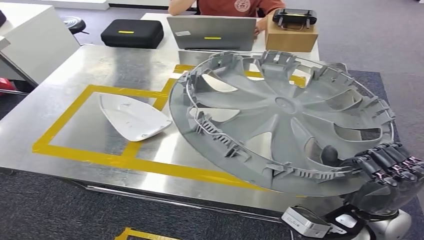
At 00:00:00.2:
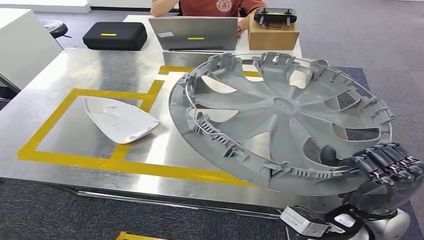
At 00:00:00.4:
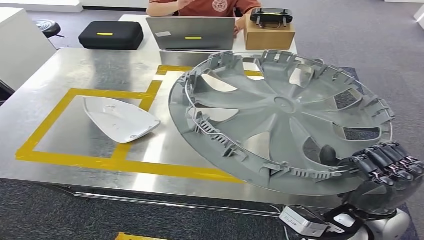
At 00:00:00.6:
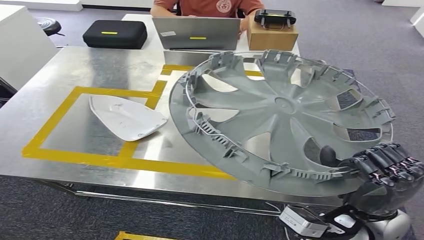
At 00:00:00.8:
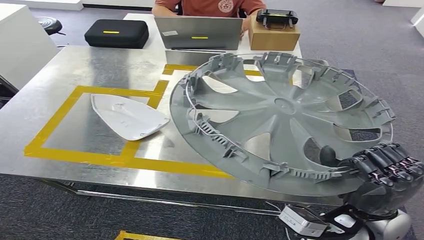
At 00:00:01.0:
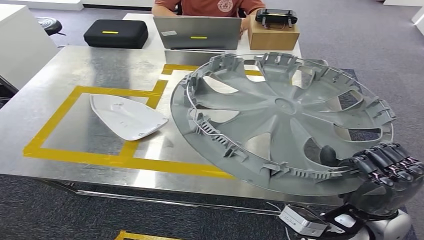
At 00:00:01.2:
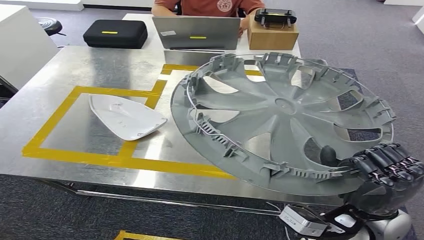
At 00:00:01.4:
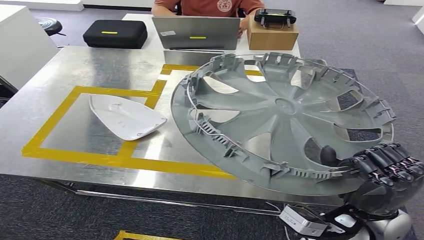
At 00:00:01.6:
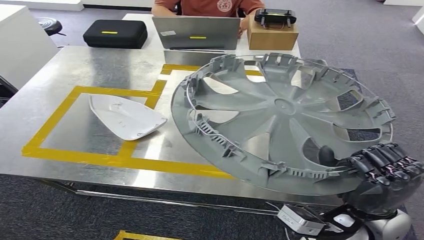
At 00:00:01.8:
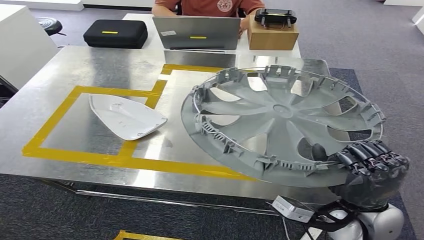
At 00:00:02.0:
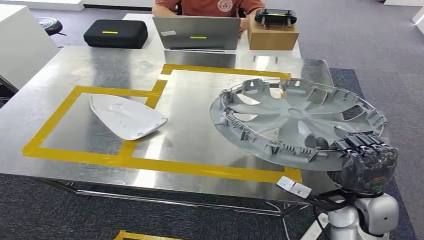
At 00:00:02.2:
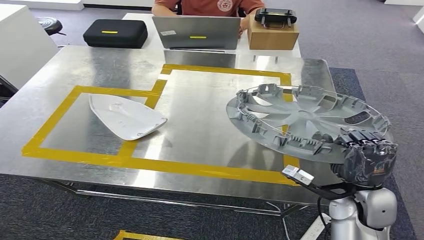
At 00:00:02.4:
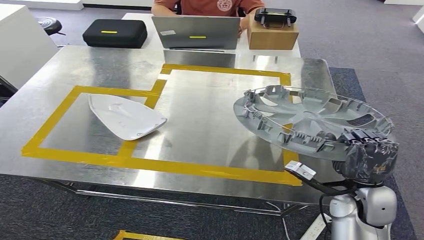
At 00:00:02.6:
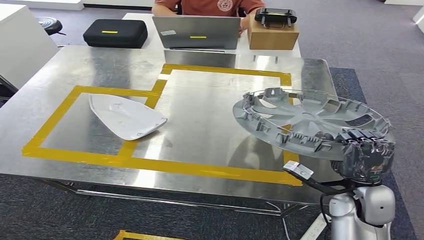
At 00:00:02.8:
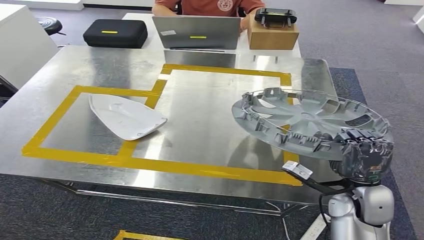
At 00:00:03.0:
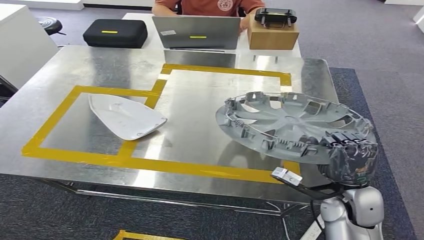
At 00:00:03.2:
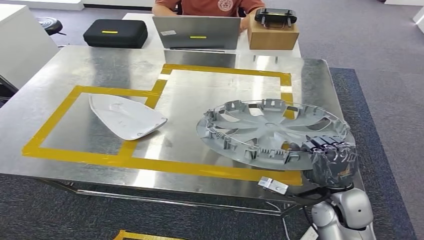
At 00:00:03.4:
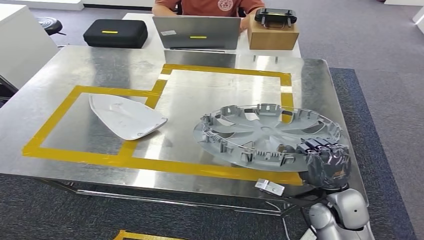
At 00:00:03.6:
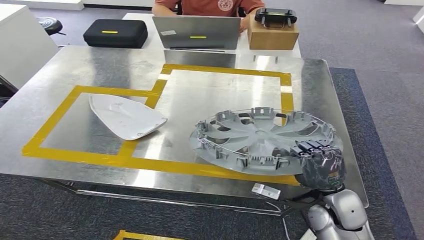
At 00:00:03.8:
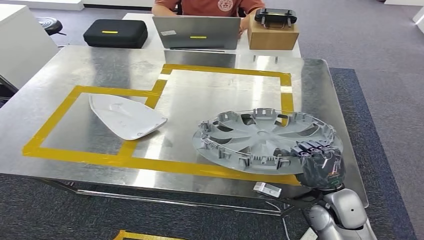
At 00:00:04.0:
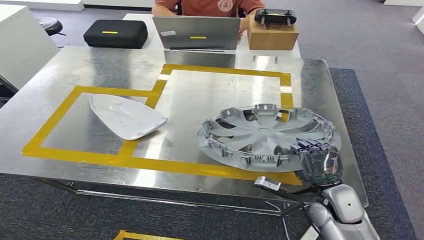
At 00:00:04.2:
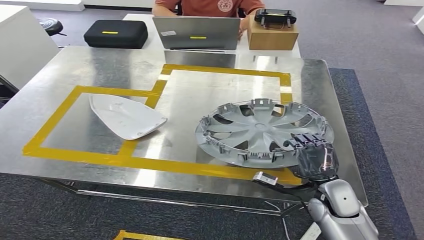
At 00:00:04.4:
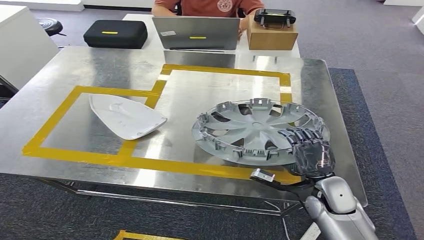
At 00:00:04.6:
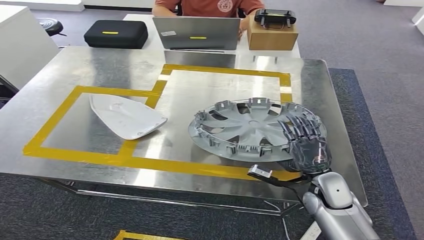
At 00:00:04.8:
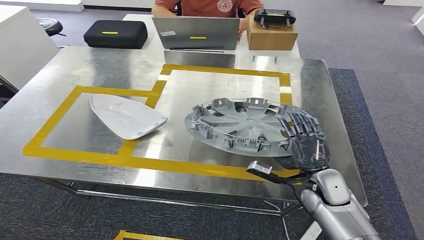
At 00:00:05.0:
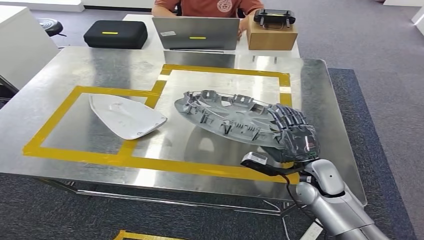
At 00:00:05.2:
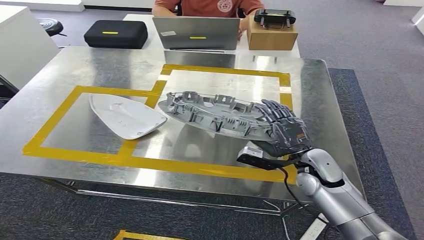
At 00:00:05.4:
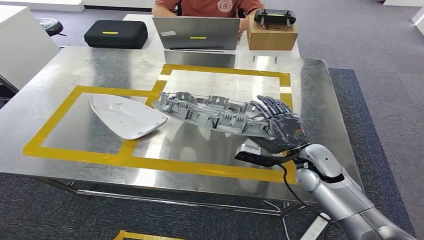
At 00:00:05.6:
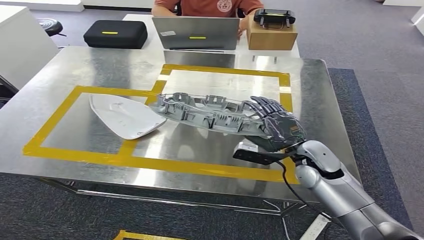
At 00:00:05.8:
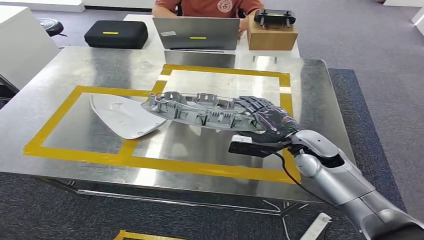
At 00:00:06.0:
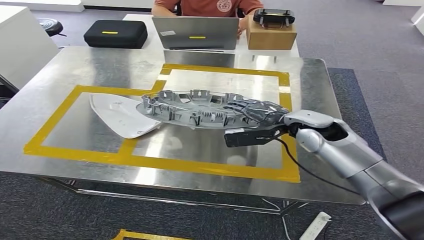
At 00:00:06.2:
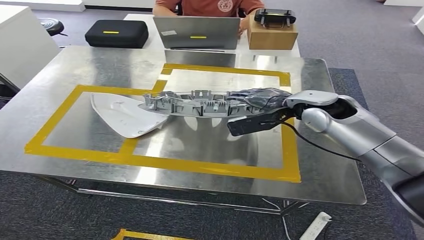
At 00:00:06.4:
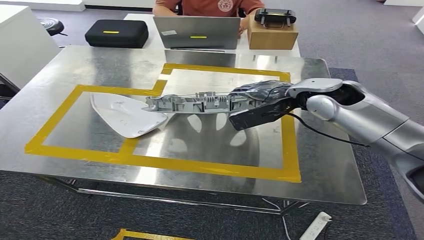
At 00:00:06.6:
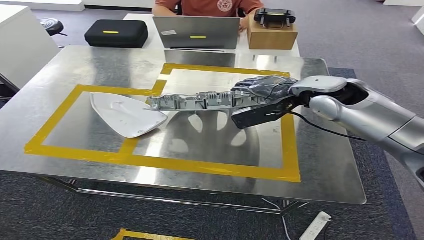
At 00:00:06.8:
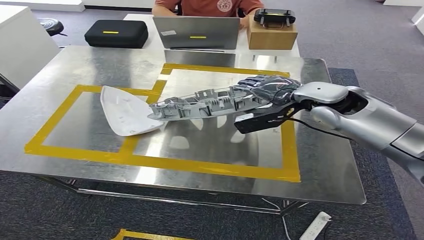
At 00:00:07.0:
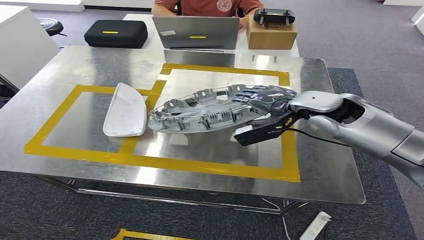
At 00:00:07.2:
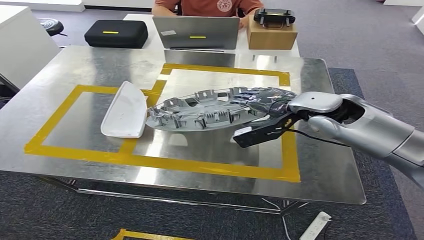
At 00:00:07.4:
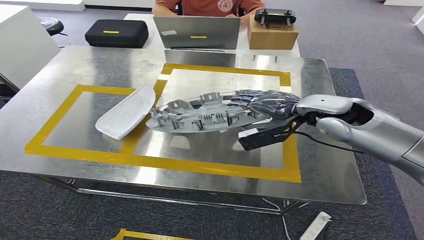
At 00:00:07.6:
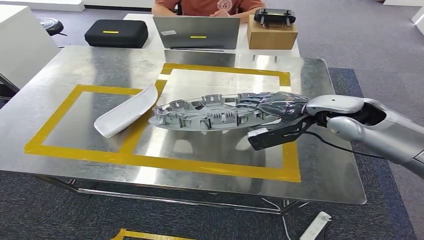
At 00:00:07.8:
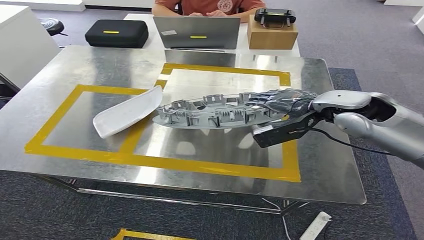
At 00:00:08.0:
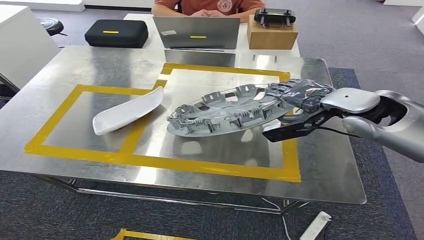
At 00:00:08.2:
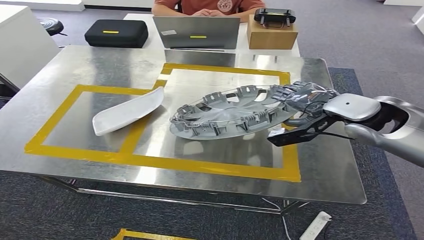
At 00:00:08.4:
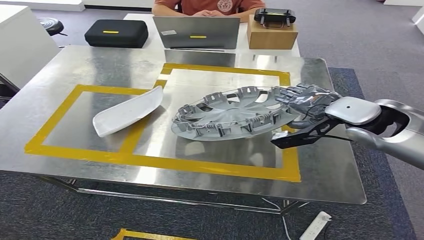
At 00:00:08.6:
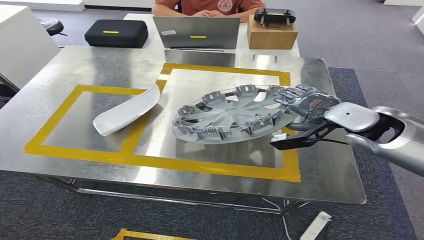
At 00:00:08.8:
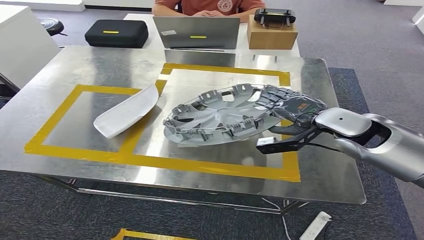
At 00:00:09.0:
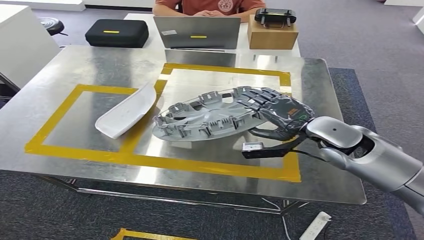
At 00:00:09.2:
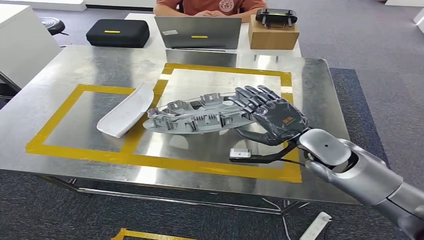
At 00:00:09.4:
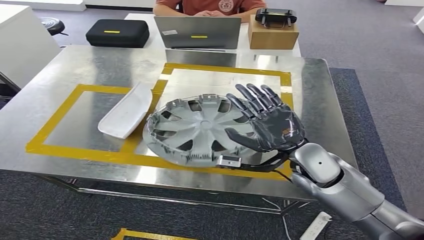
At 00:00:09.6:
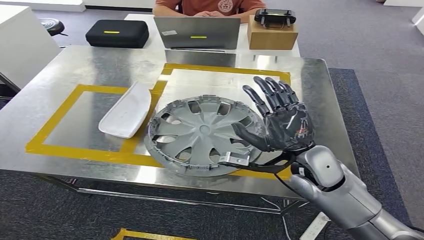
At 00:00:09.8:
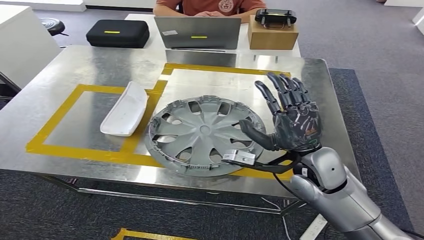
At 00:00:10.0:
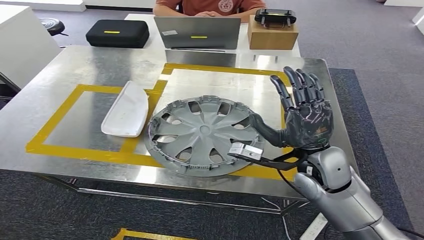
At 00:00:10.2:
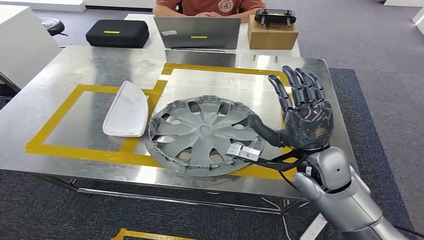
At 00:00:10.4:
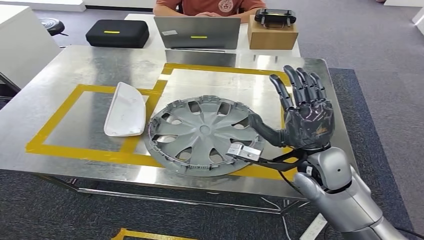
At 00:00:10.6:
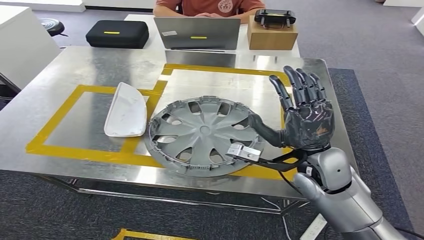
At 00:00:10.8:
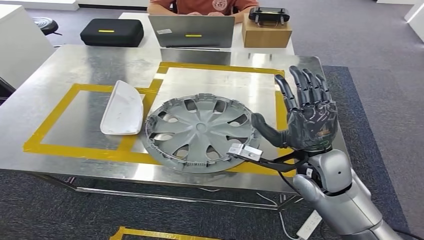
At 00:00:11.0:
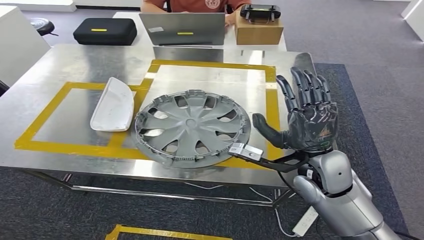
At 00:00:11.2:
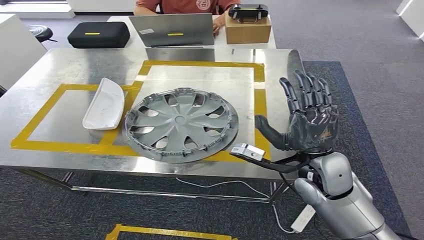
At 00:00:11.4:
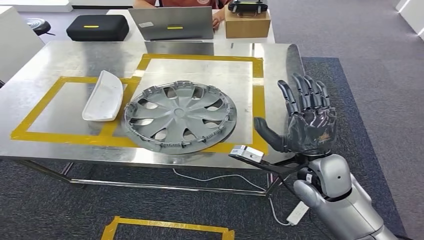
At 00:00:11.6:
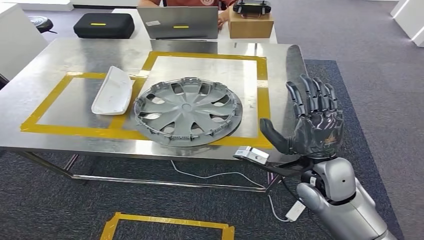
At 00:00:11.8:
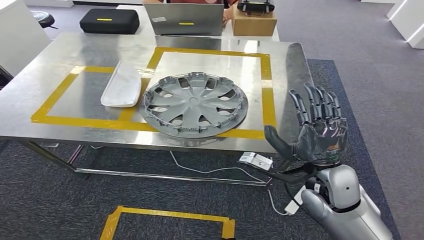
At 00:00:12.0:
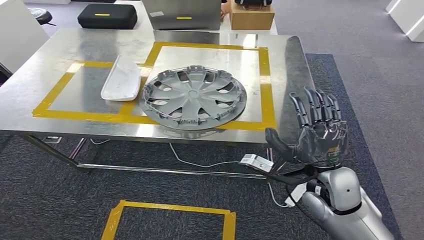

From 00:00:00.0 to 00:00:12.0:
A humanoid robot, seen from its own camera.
Step, from 00:00:00.0 to 00:00:09.4: Insert the small component into the corresponding slot on the workbench.
From 00:00:03.0 to 00:00:04.4: The right hand moves approximately 5 cm.
From 00:00:06.0 to 00:00:07.6: The right hand travels upward by roughly 5 cm.
From 00:00:07.6 to 00:00:09.0: The right hand is displaced downward by some 5 cm.

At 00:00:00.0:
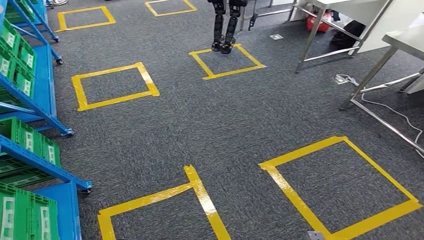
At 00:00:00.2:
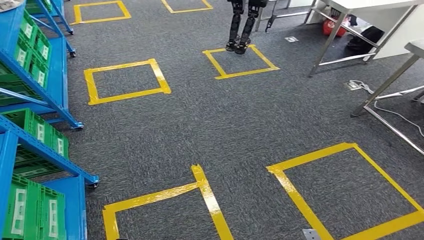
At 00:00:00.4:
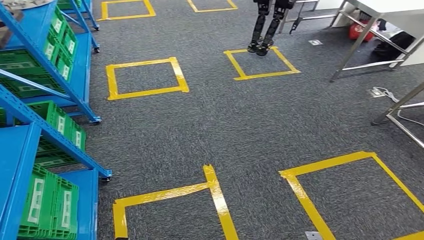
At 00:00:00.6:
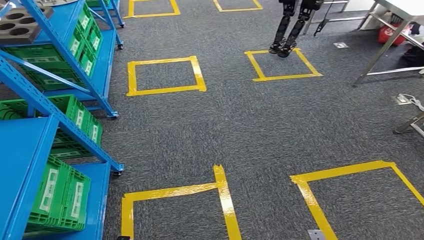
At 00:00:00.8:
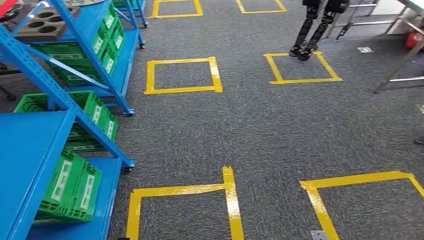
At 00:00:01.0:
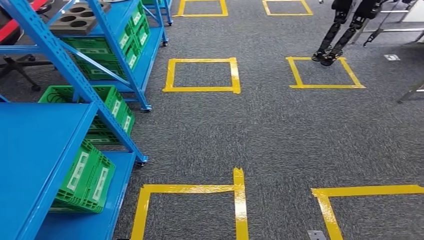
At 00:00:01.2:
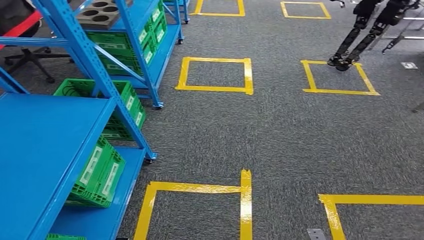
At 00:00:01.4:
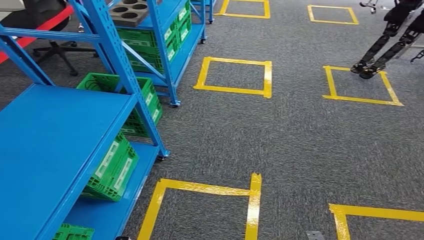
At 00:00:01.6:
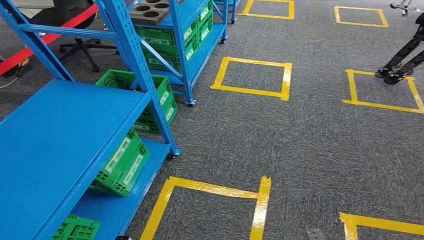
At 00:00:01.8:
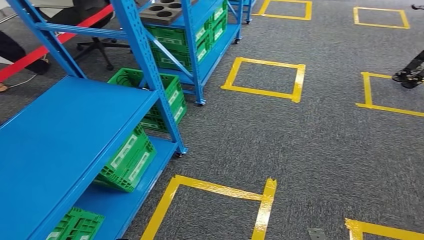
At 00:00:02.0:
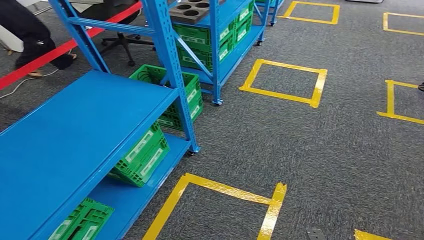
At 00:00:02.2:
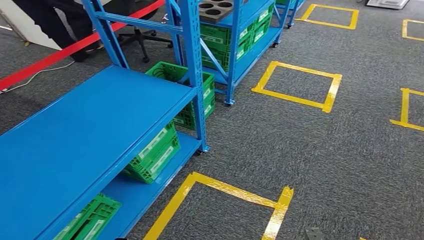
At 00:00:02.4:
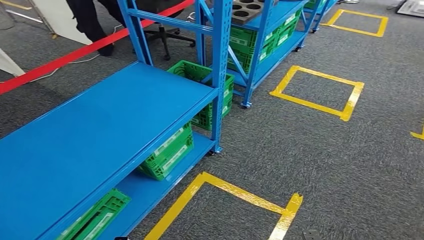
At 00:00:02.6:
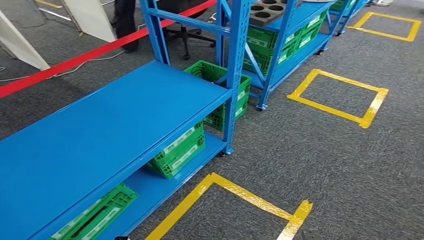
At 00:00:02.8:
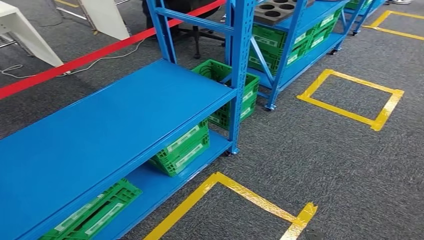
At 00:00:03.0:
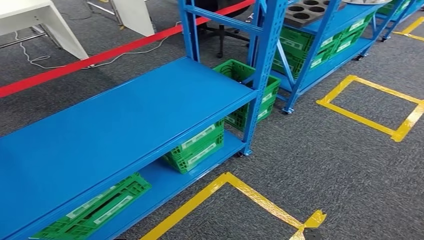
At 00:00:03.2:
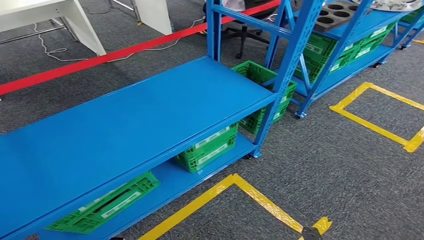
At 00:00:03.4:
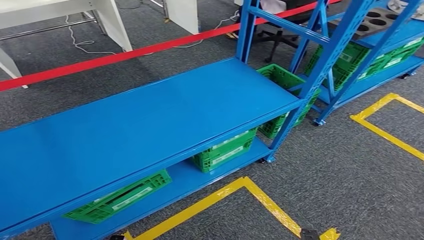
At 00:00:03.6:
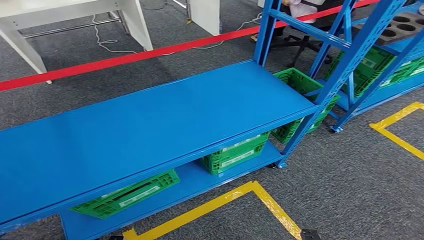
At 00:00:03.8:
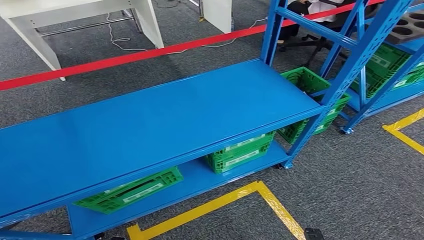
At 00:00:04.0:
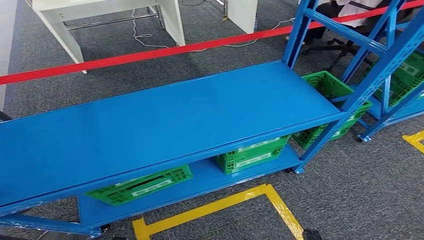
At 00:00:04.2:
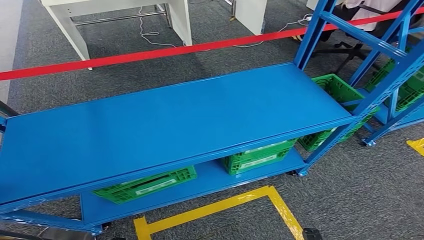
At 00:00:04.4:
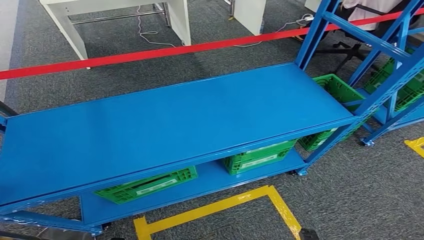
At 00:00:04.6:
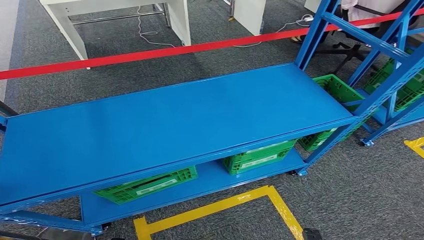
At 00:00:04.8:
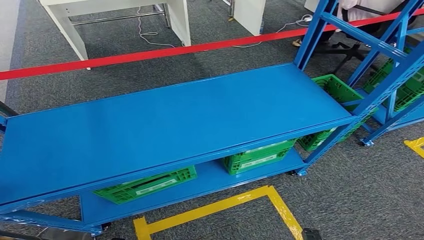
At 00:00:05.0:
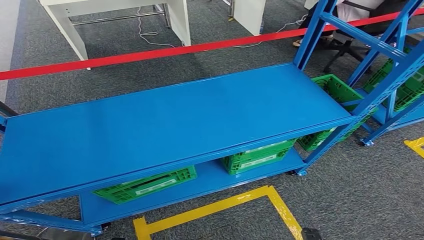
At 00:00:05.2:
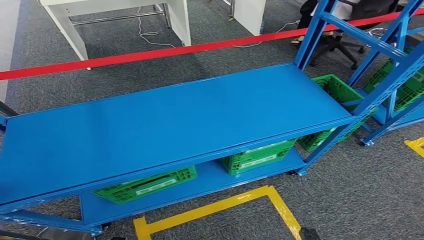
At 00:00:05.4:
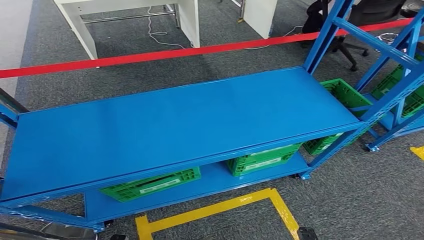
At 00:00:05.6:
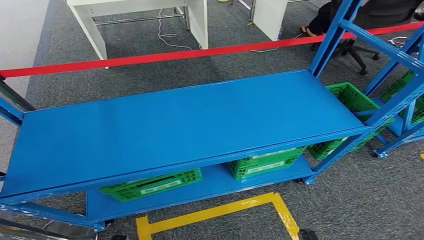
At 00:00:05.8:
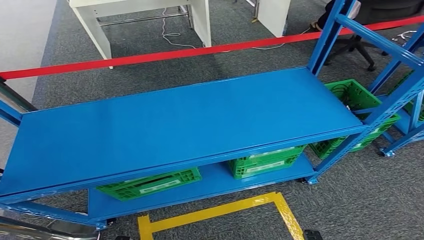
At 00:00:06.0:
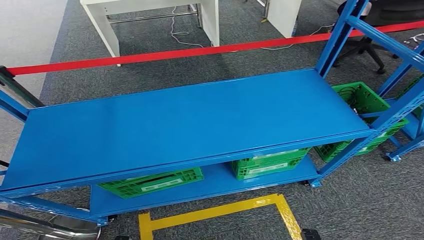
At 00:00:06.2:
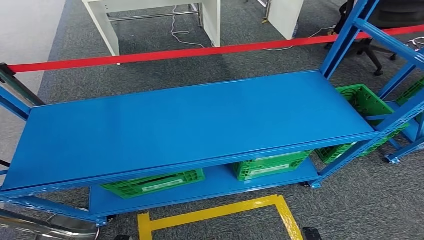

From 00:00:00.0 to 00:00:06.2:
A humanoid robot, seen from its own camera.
Step, from 00:00:00.0 to 00:00:06.2: Return to the initial position at the workbench.
